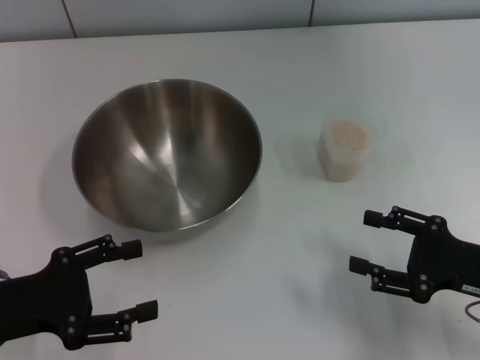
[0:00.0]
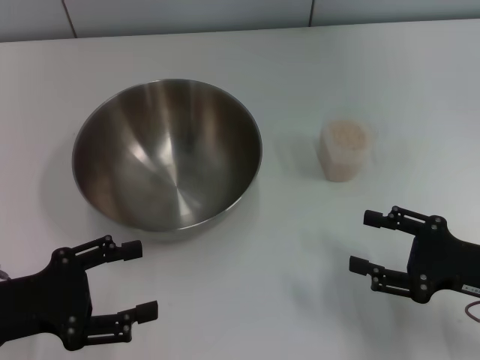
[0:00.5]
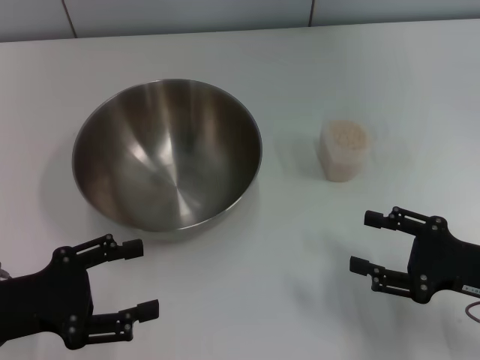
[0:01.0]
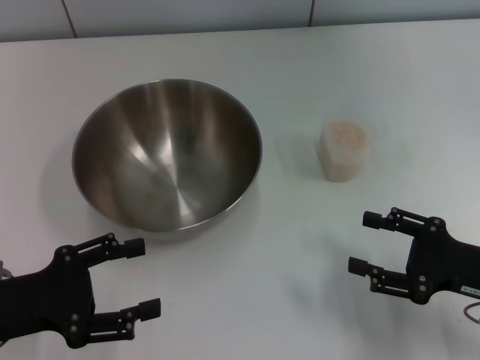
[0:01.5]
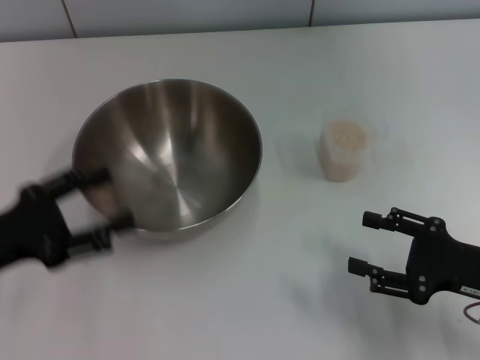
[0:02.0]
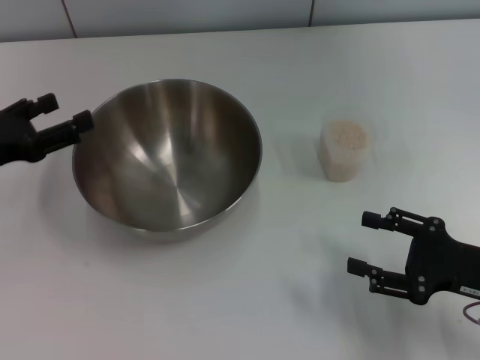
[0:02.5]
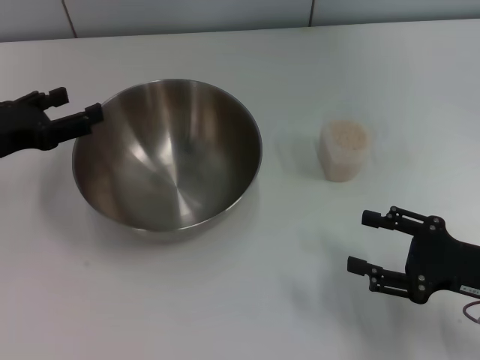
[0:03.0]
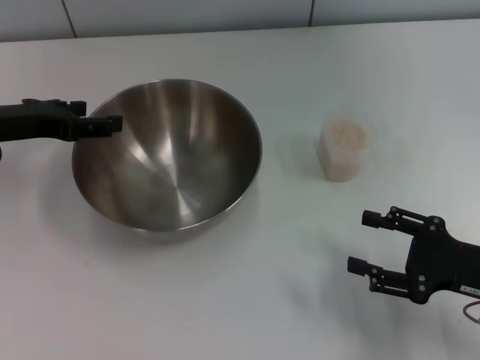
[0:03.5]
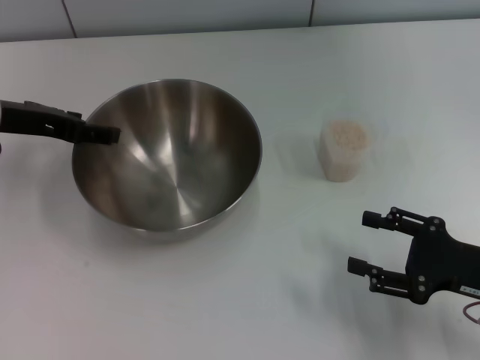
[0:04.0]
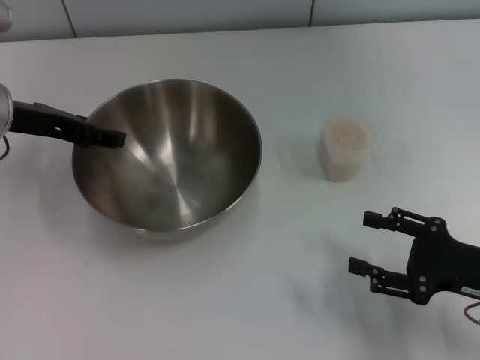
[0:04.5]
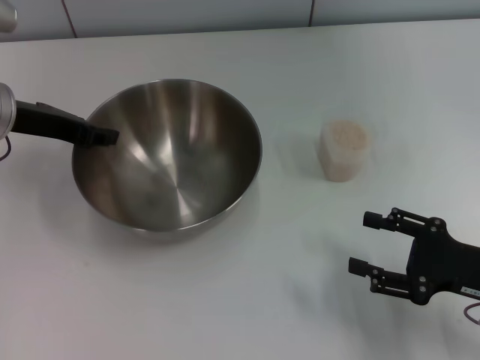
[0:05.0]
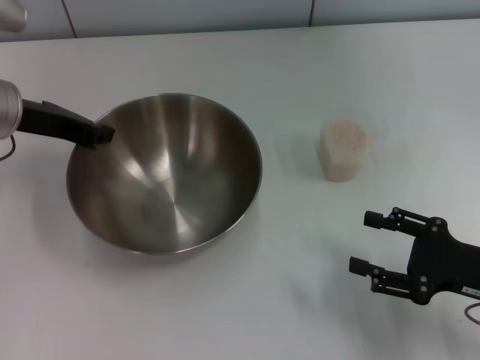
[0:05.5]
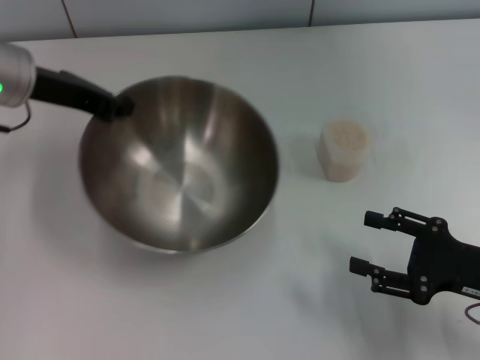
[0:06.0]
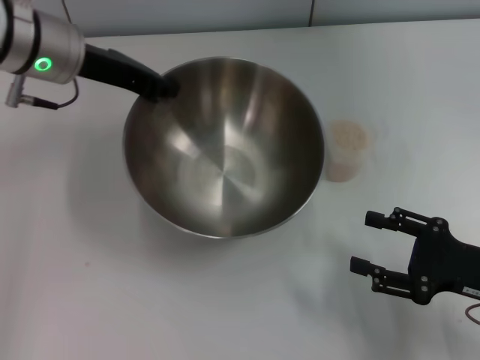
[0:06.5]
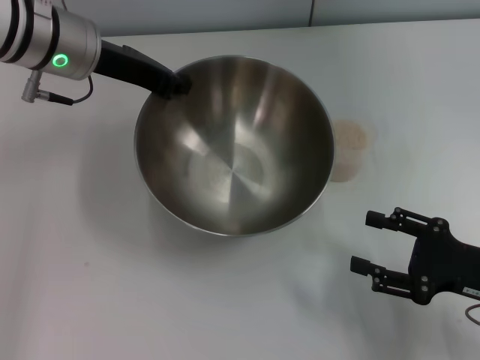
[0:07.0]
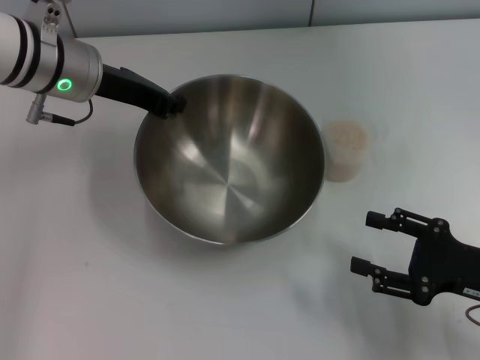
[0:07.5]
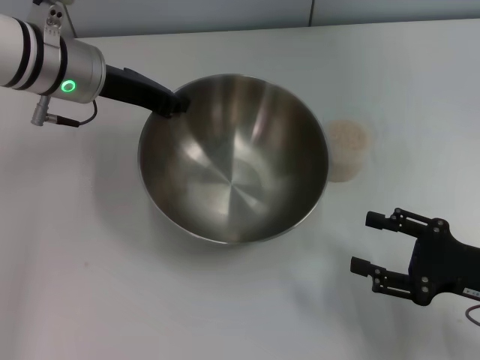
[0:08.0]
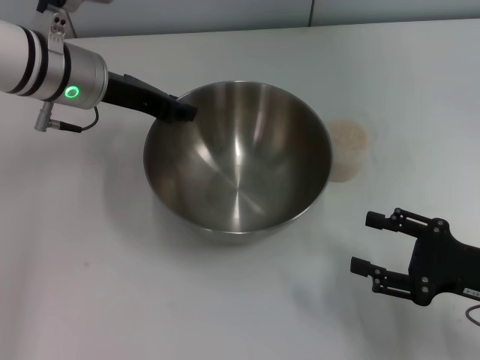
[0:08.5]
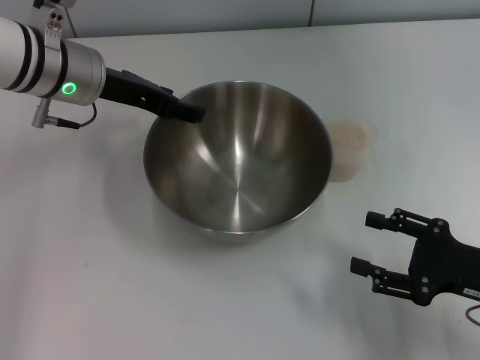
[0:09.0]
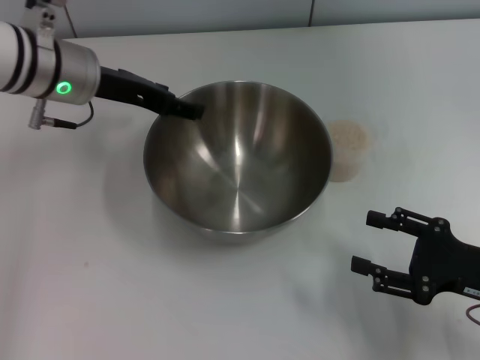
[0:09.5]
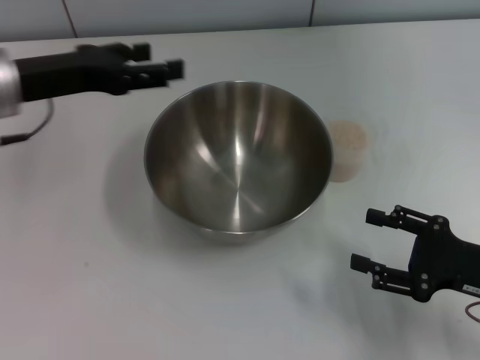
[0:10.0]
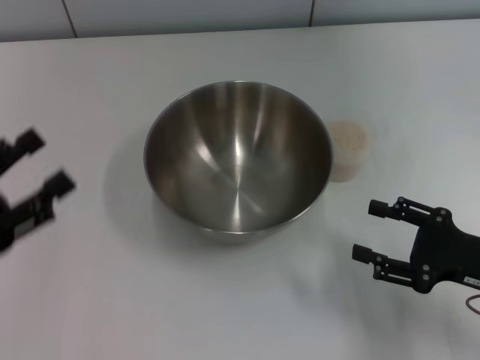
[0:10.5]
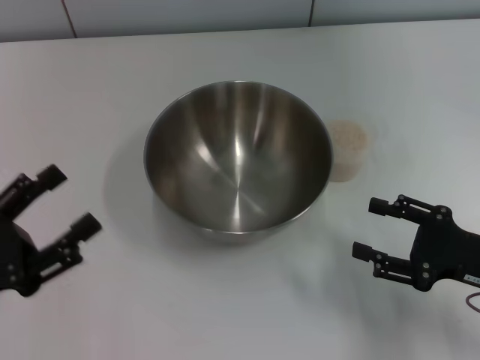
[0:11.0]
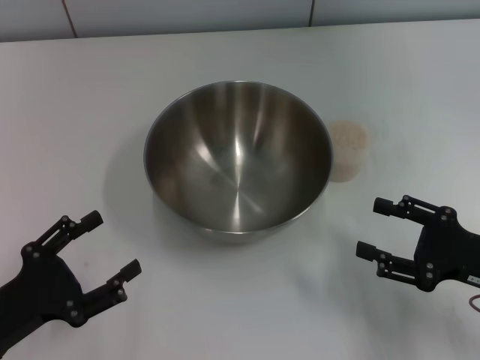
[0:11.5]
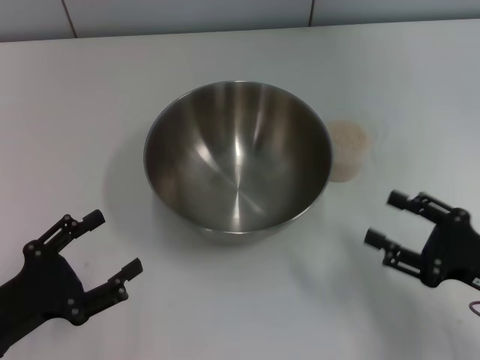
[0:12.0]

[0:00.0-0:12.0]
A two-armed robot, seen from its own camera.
Task of the whole recording: Place the bowl in the middle of the table with one hand and pour the rice from the grain cup into it with the other hand.
Step, 0:00.0 to 0:05.5: Pick up the bowl with the left gripper.
Step, 0:06.0 to 0:09.5: Place the bowl in the center of view with the left gripper.
0:00.0 to 0:02.0: The grippers stay close to where they were, moving slightly.
0:02.0 to 0:04.0: The left gripper heads forward, covering some 15 cm.
0:04.0 to 0:06.0: The left gripper ends up some 5 cm from where it was, and closes up.
0:06.0 to 0:08.0: The left gripper moves about 5 cm.
0:08.0 to 0:10.0: The left gripper goes approximately 10 cm to the left and backward, and opens up.
0:10.0 to 0:12.0: The left gripper shifts about 25 cm backward and downward.

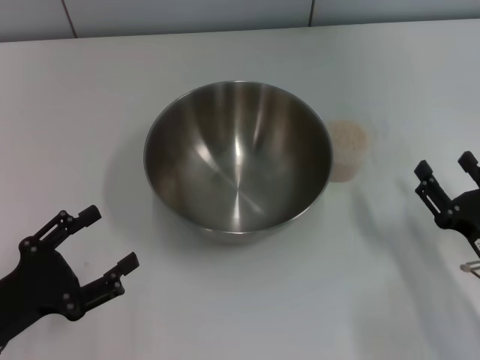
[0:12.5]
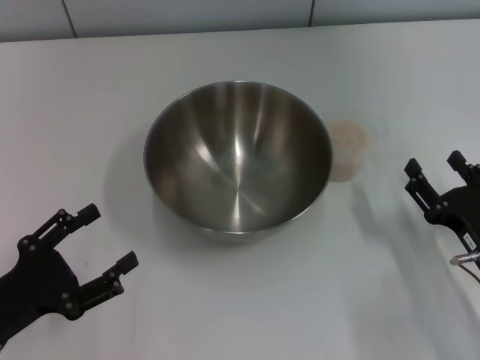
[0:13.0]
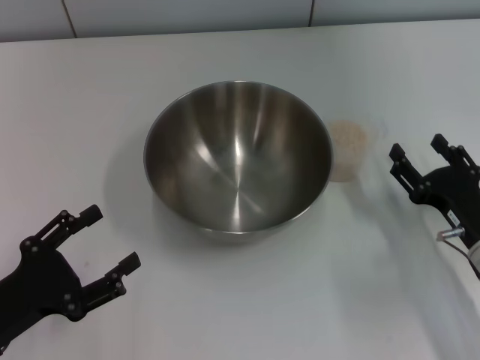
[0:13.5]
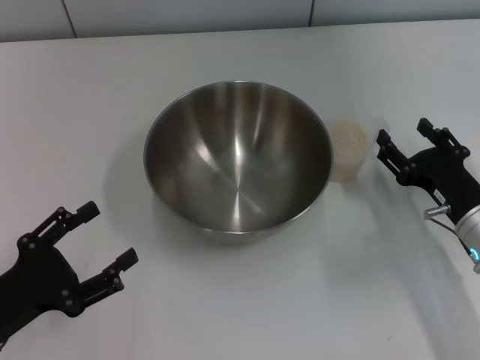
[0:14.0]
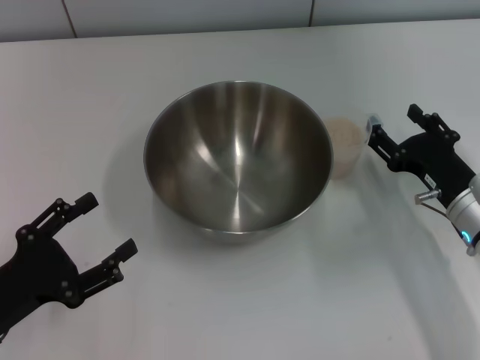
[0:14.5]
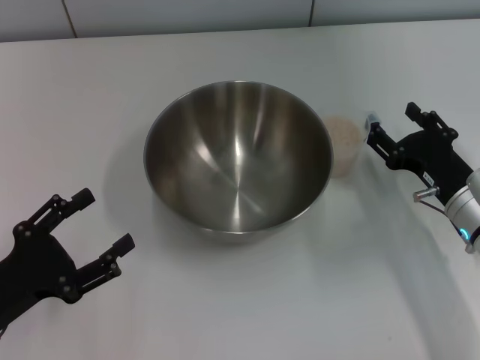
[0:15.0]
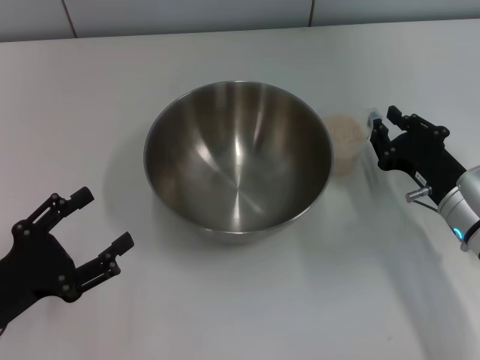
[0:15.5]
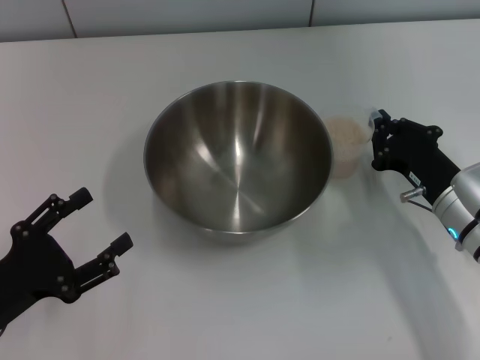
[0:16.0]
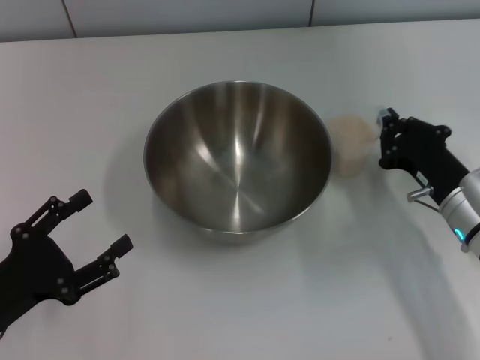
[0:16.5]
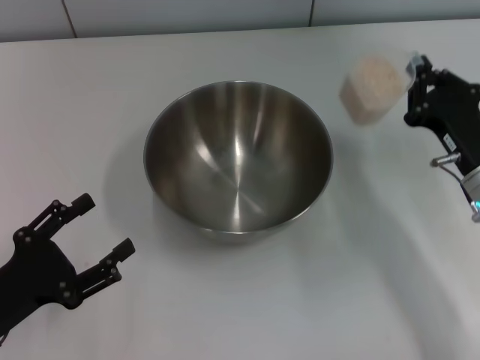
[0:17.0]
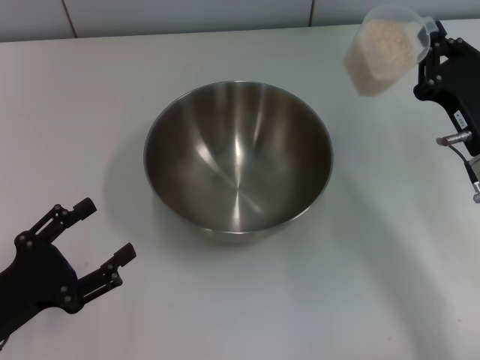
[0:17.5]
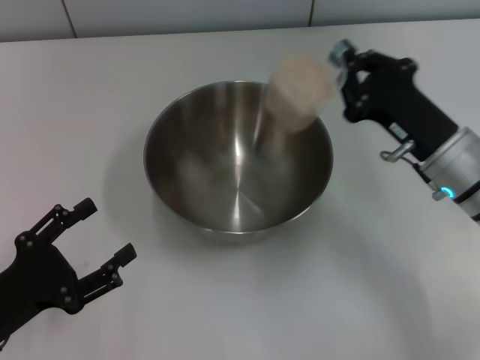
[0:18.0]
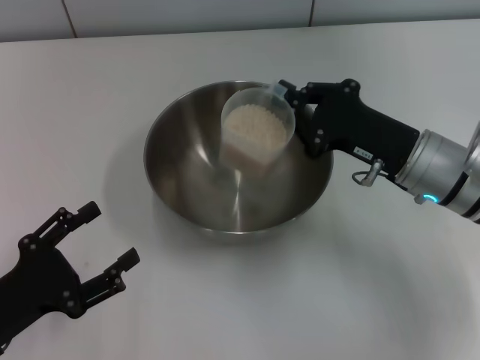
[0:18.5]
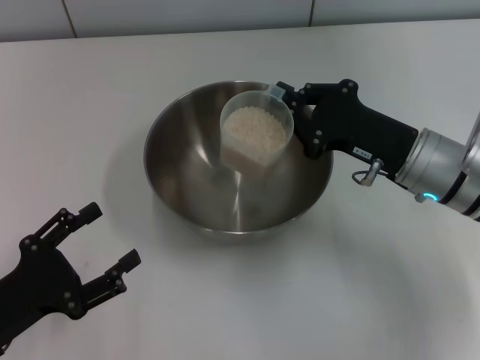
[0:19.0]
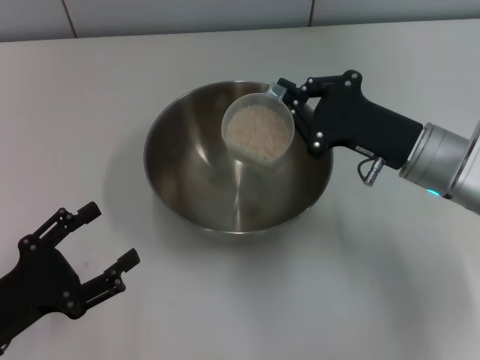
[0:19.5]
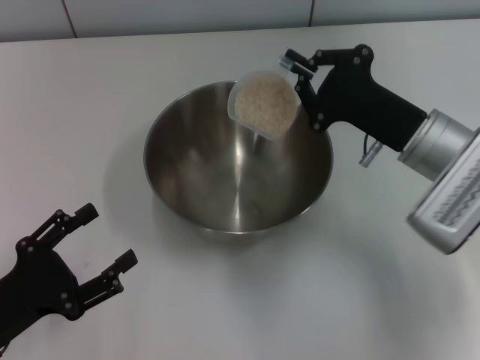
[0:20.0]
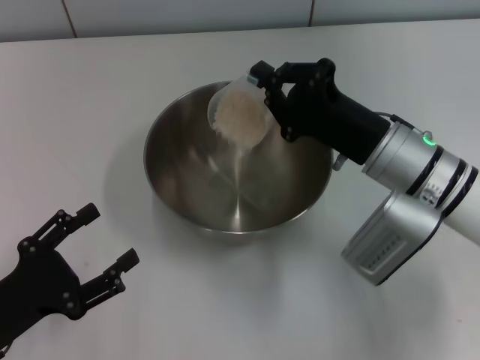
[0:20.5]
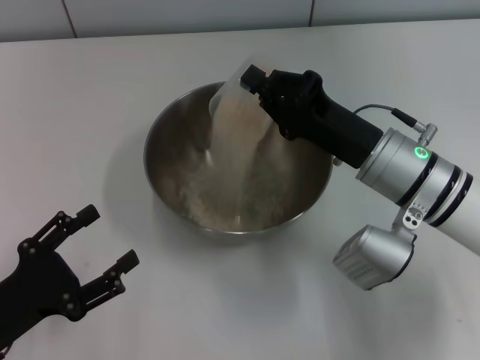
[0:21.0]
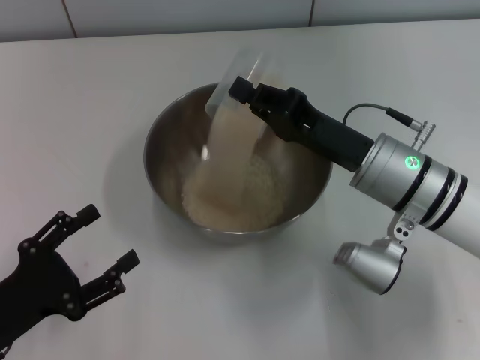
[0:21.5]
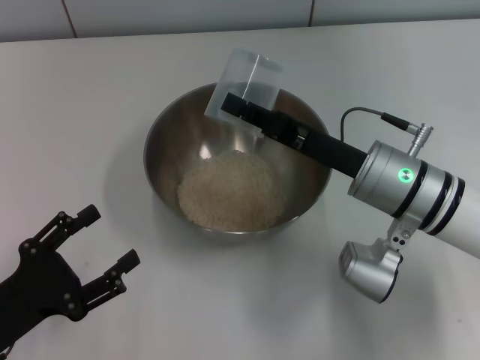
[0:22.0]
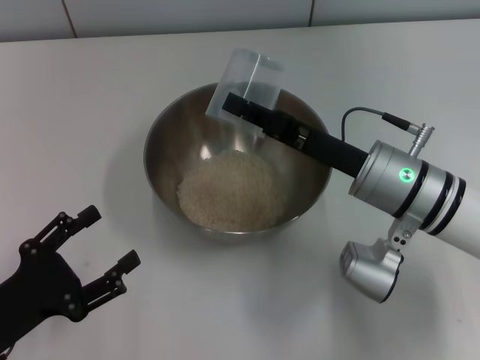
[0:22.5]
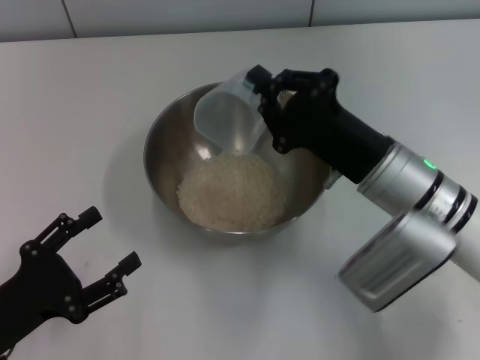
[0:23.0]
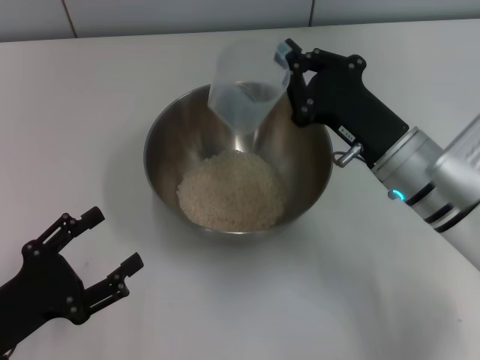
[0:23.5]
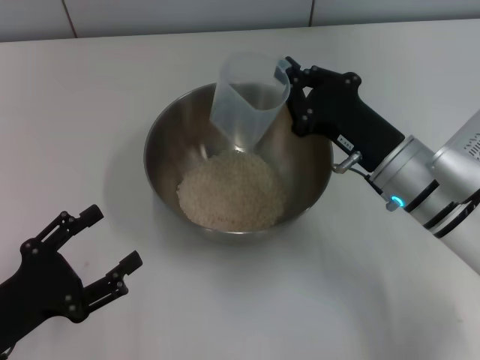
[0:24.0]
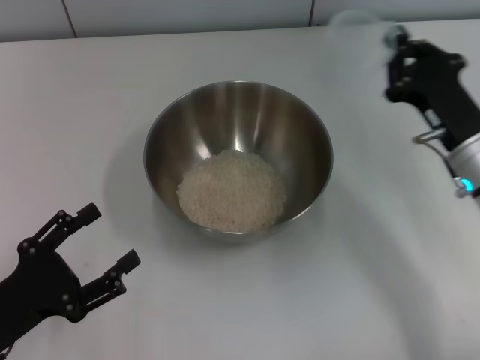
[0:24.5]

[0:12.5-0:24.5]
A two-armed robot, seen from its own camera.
Task of the whole recording: Place the bowl in the middle of the table with one hand and pour the rice from the grain cup into it with the other hand.
Step, 0:12.5 to 0:17.0: Pick up the cup with rice in it with the right gripper.
Step, 0:17.5 to 0:24.0: Pour the rice from the cup into the bowl with the right gripper.
0:12.5 to 0:14.5: The right gripper moves forward, about 10 cm.
0:14.5 to 0:16.5: The right gripper closes up.
0:16.5 to 0:18.5: The right gripper shifts roughly 5 cm upward.
0:22.5 to 0:24.5: The right gripper goes about 10 cm to the right.

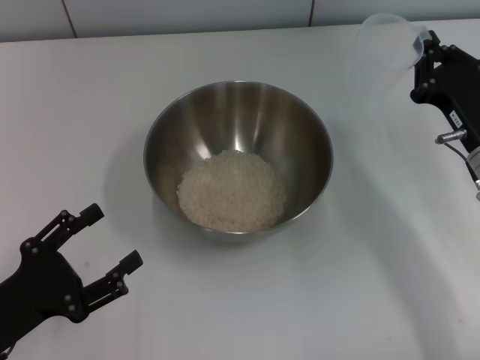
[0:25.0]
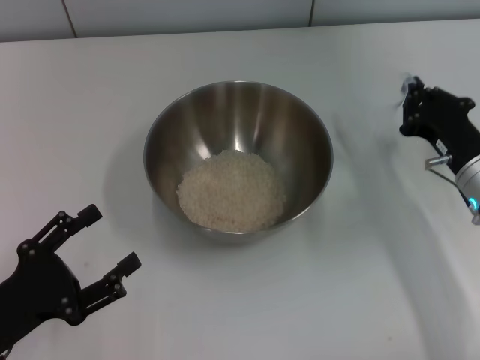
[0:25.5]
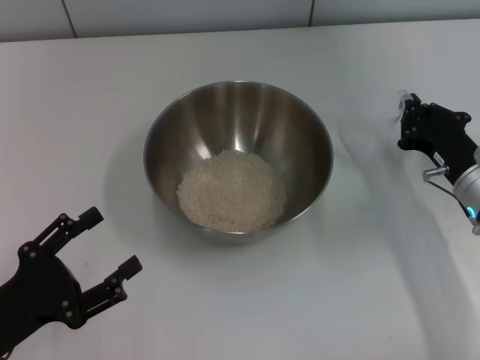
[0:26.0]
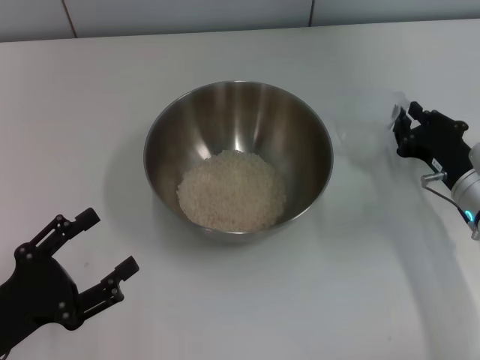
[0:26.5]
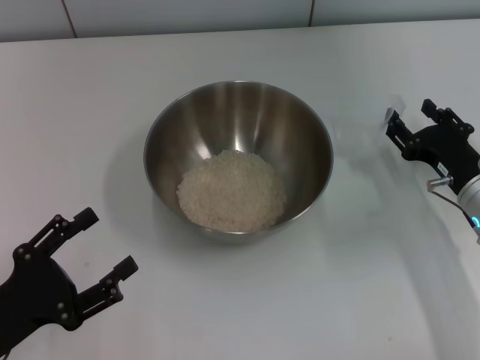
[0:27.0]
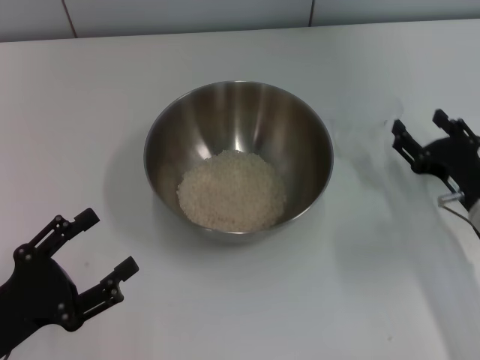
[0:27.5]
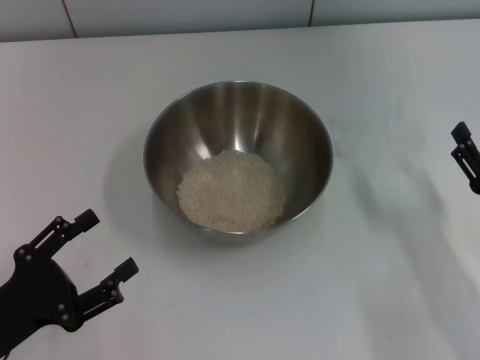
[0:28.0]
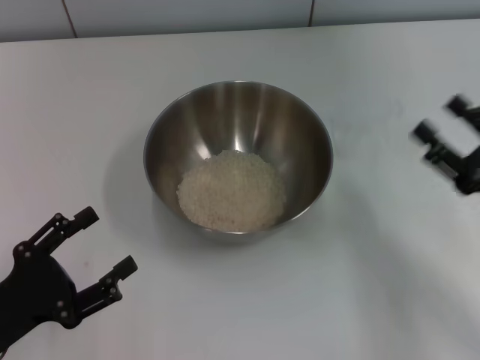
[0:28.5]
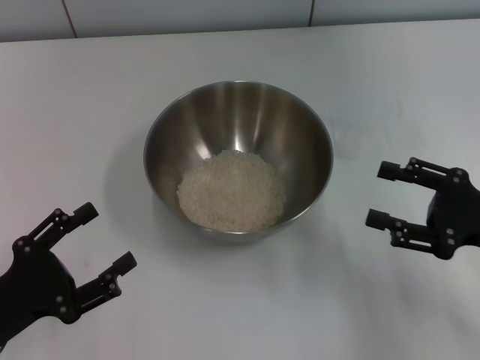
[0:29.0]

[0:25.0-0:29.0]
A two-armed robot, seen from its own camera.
Task of the whole recording: Place the bowl in the middle of the table with one hand and pour the rice from the grain cup into it with the other hand.
Step, 0:25.0 to 0:27.5: Place the cup on the table with the right gripper.
0:25.0 to 0:27.0: The right gripper opens its fingers.
0:27.0 to 0:29.0: The right gripper heads upward and backward, covering approximately 10 cm.
